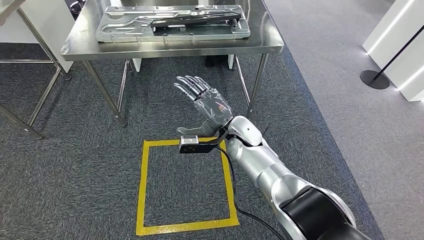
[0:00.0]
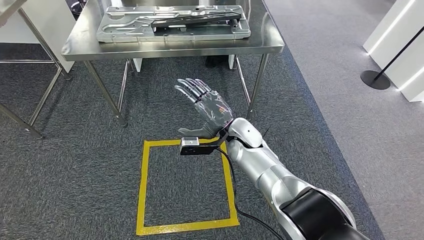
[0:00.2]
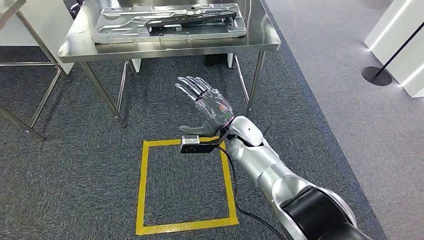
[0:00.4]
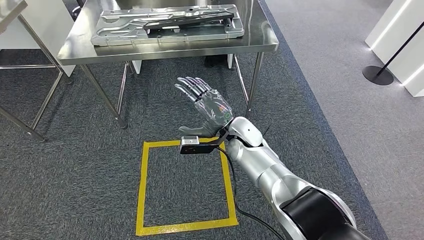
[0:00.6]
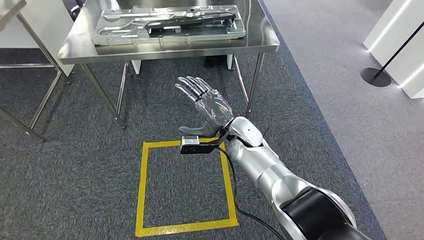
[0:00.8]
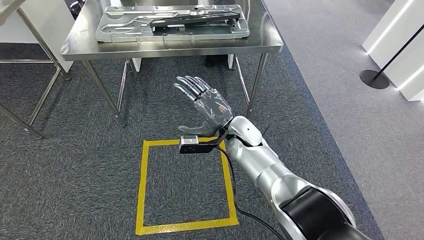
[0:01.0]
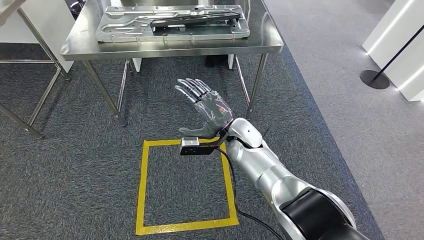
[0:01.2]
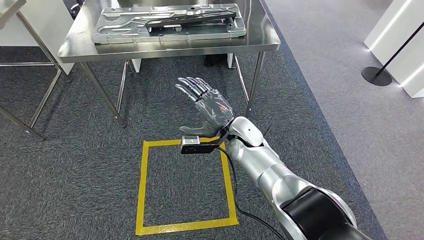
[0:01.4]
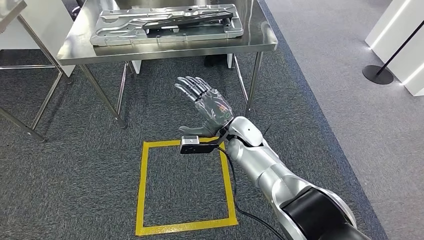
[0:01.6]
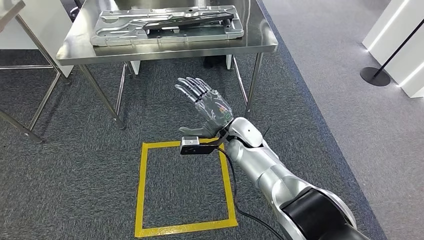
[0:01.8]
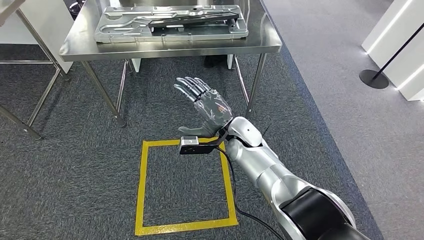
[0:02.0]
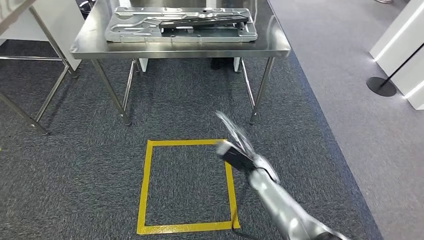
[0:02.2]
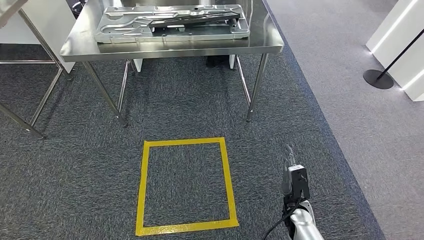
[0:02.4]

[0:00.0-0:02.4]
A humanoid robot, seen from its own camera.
Step, 0:00.0 to 0:02.4: Move to the initial position of the shelf.
0:00.0 to 0:01.2: Both hands stay put.
0:01.2 to 0:02.4: The right hand goes some 30 cm downward, backward and to the right.
